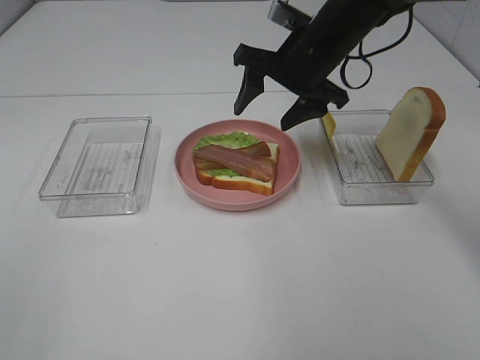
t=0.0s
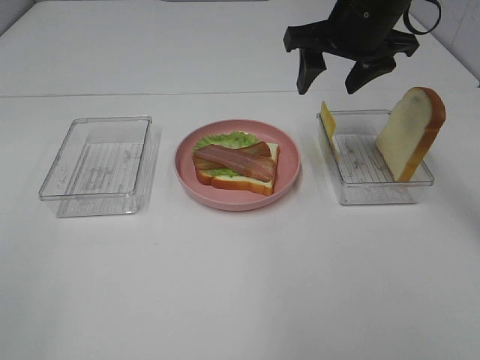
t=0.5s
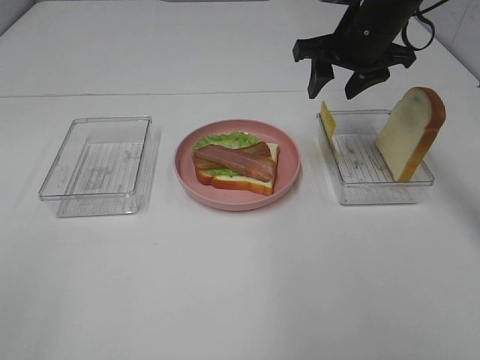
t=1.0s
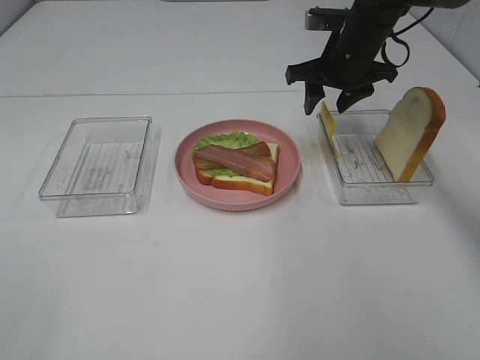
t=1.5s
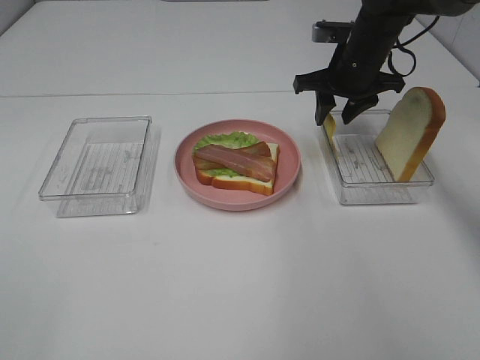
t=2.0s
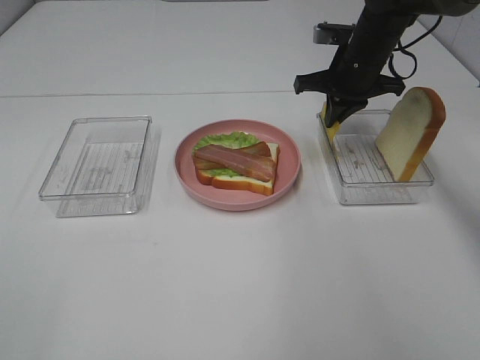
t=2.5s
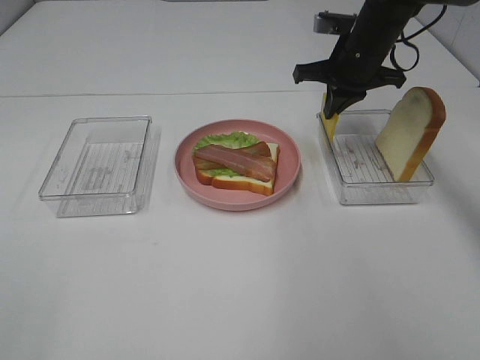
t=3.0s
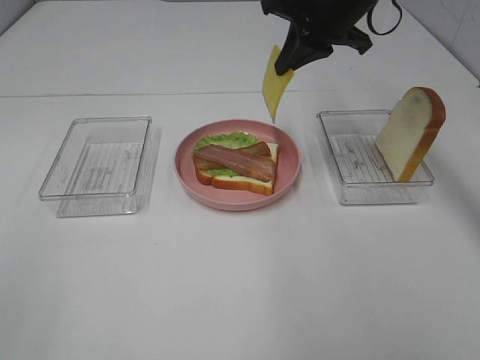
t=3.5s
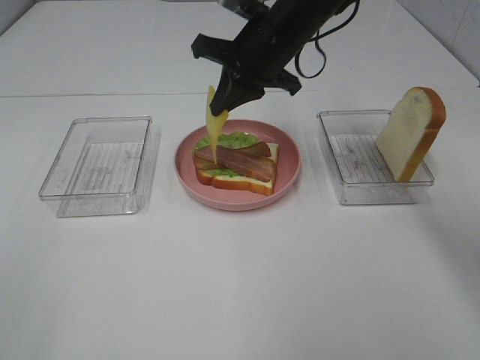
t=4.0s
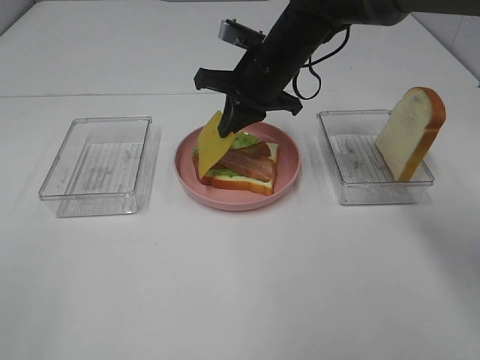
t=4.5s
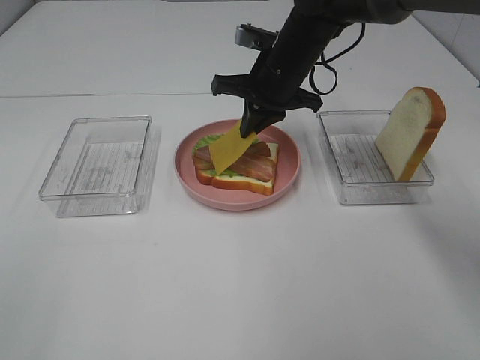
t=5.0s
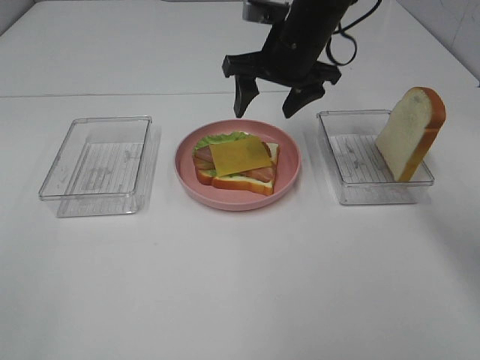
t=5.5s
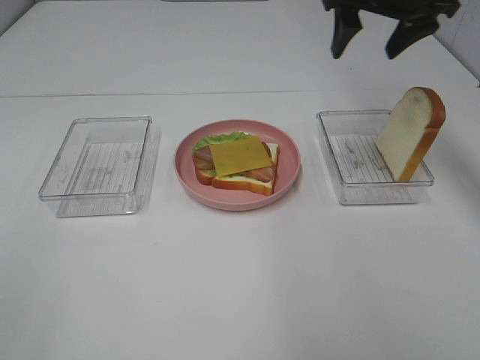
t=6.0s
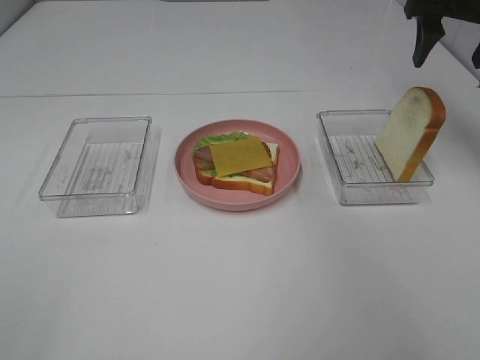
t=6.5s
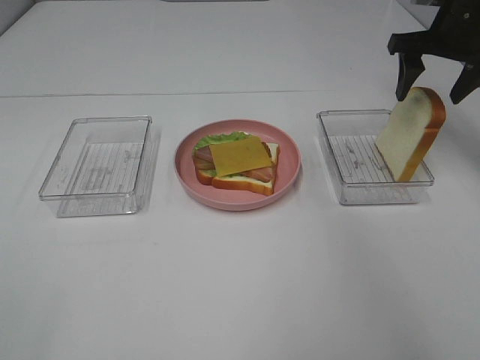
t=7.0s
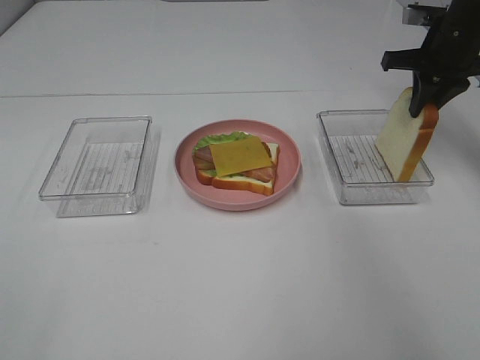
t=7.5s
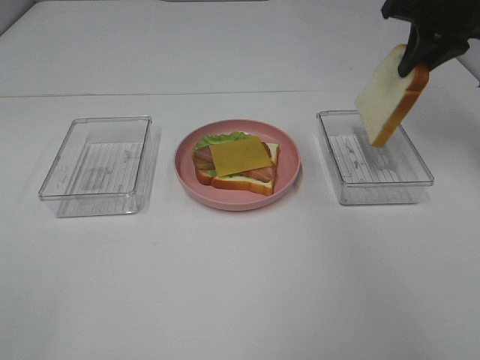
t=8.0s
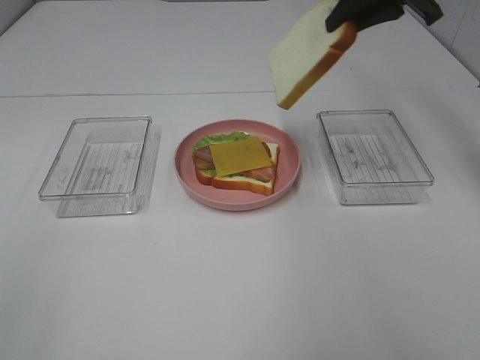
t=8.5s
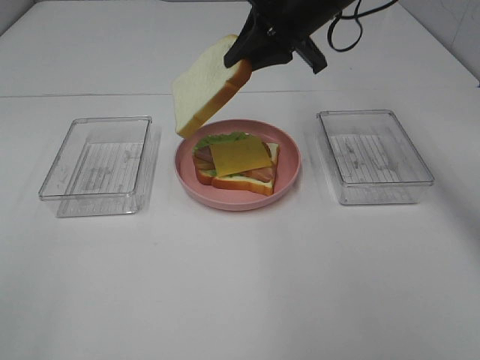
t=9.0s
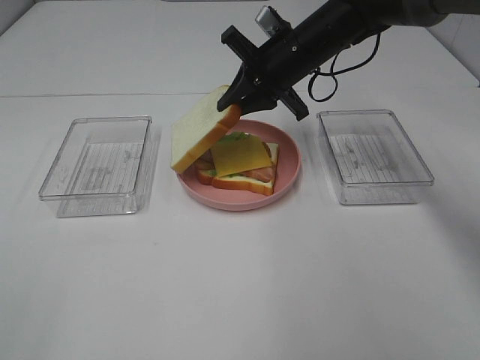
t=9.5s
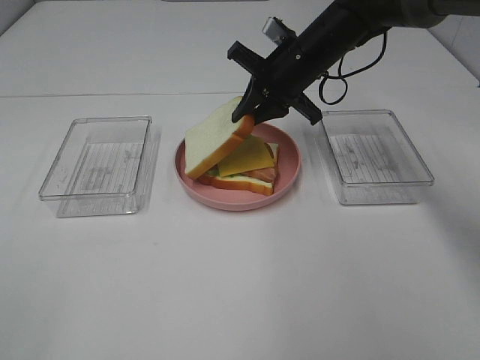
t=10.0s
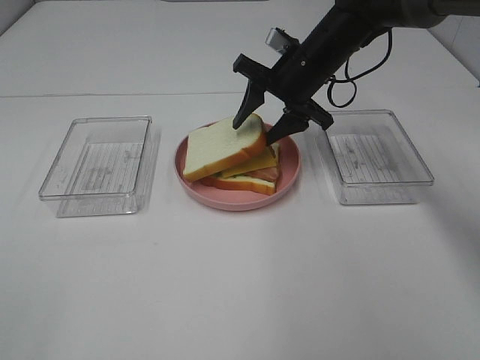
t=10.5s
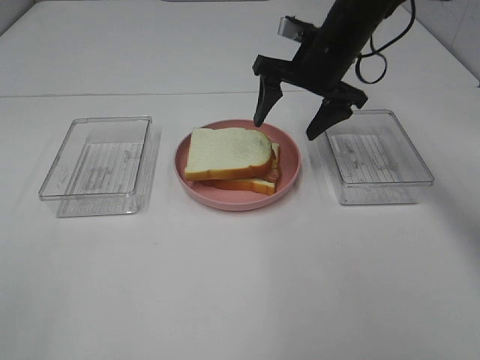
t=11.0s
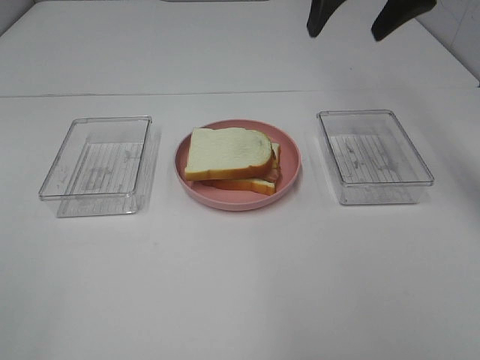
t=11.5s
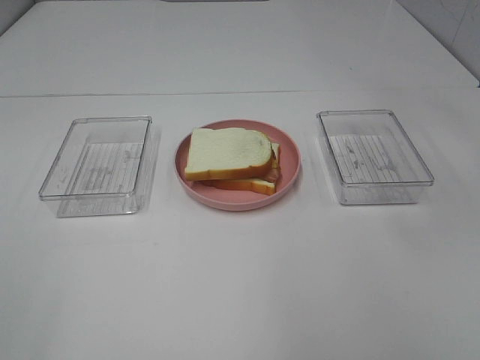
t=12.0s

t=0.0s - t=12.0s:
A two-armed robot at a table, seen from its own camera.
Task of the whole recording: Make sandwiches.
Step, t=0.0s - t=2.5s: Right hand:grab the cheese slice.
Step, t=3.0s - t=5.5s: Right hand:place the cheese slice on top of the bacon.
Step, t=6.0s - t=7.5s: Right hand:grab the bread slice.
Step, t=8.0s - t=11.0s: Right hand:place the bread slice on the cheese slice.
t=0.0s - t=2.0s: The right gripper shifts about 10 cm to the right and forward.
t=2.0s - t=4.0s: The right gripper shifts approximately 15 cm to the left and backward, and closes.
t=4.0s - t=6.0s: The right gripper goes about 15 cm to the right and upward, and opens its fingers.
t=6.0s - t=8.0s: The right gripper travels to the right by about 10 cm, and closes up.
t=8.0s - t=10.0s: The right gripper travels to the left and downward by about 20 cm.
t=10.0s - t=12.0s: The right gripper goes some 30 cm upward, backward and to the right, and opens.

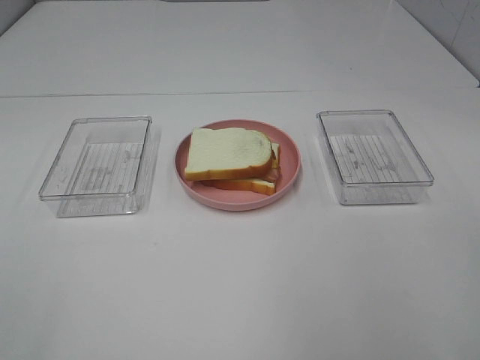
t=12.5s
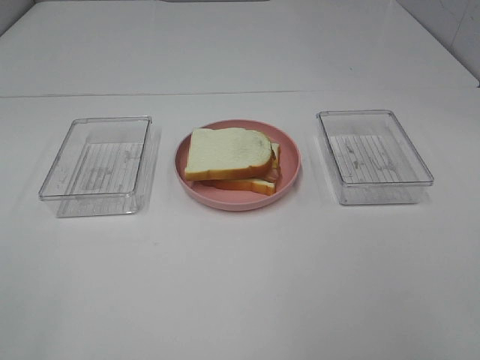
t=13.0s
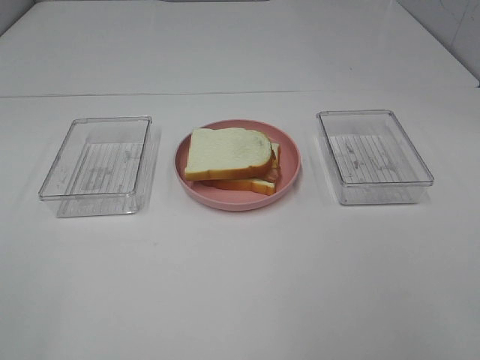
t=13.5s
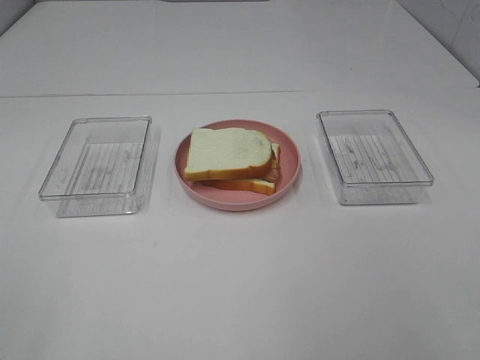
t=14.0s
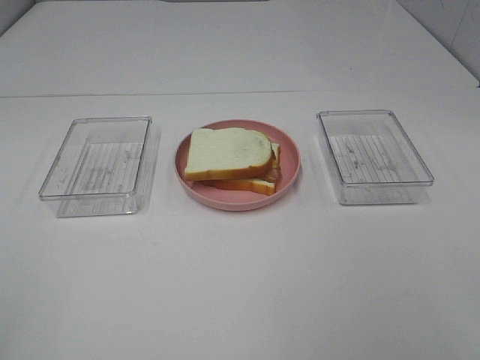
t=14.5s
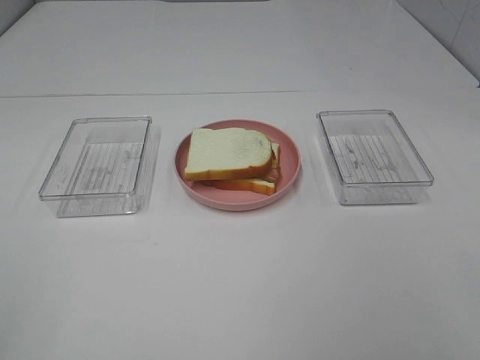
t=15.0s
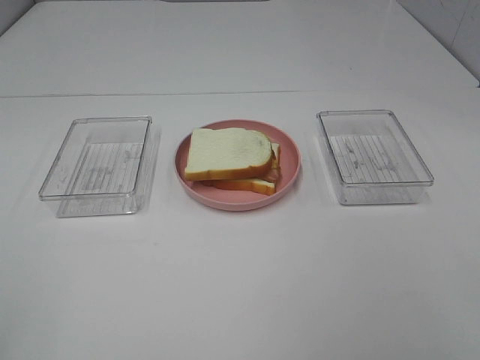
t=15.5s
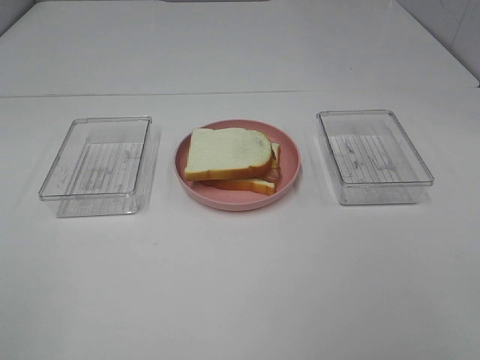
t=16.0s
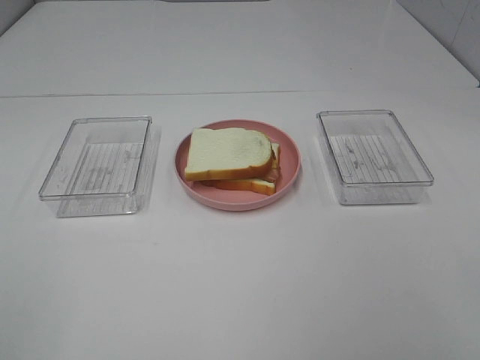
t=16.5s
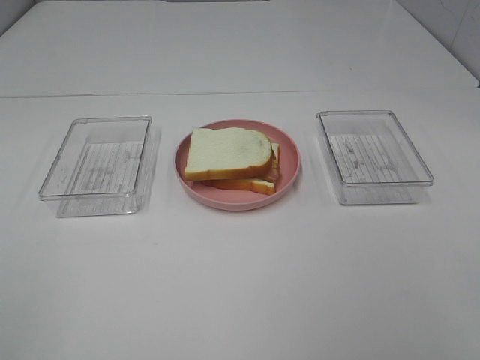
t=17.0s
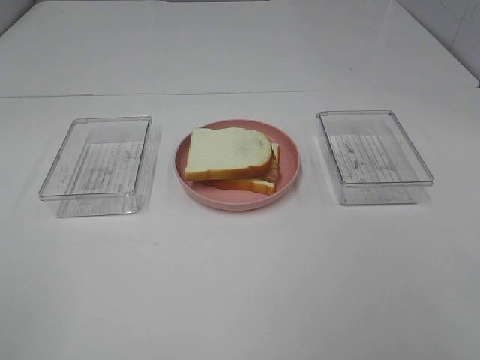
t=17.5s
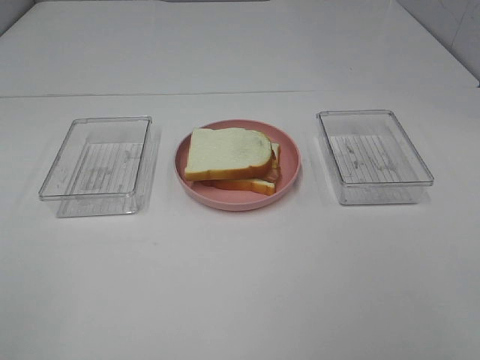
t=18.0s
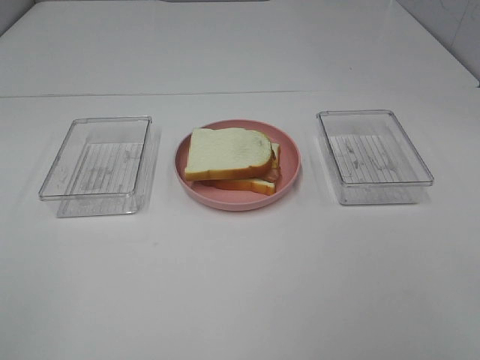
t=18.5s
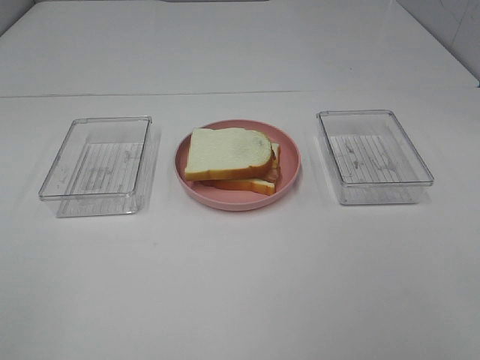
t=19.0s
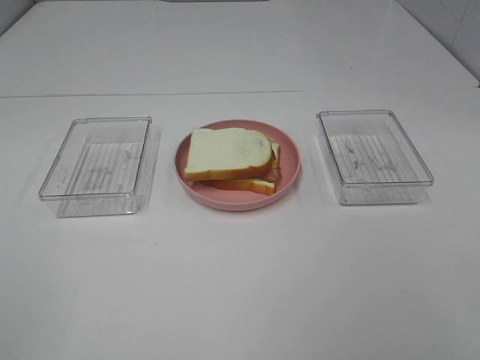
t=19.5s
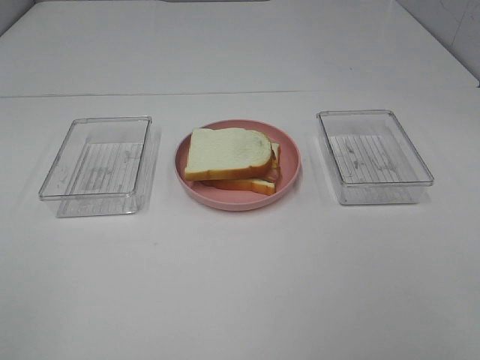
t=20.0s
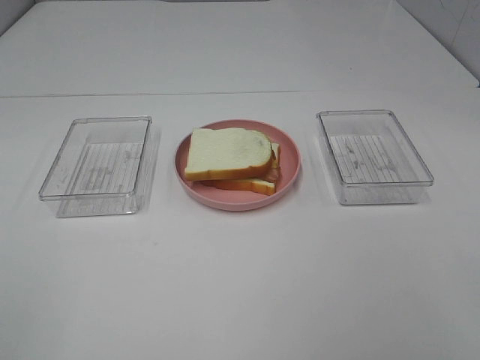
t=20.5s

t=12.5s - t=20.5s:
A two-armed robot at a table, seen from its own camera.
Task of the whole recording: Make sandwiches.
t=16.5s - t=20.5s: Both grippers stay put.
